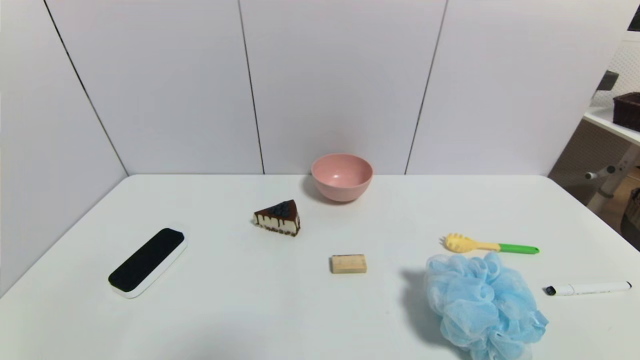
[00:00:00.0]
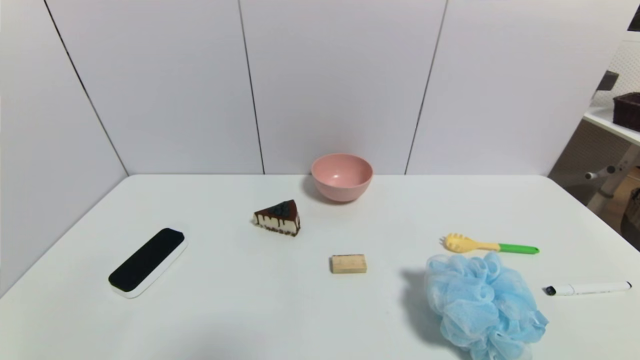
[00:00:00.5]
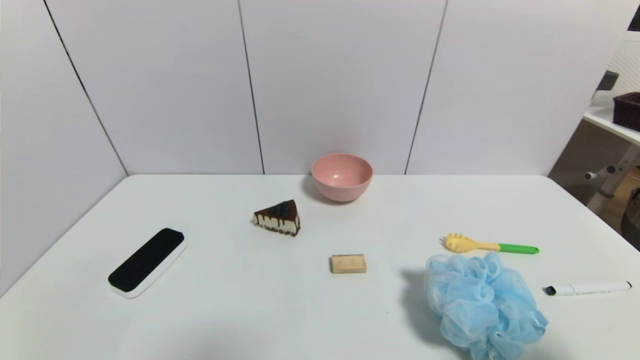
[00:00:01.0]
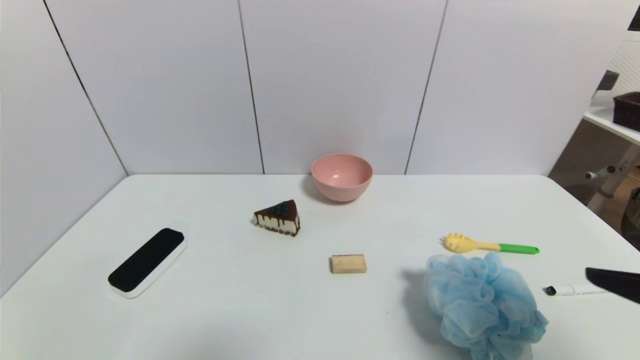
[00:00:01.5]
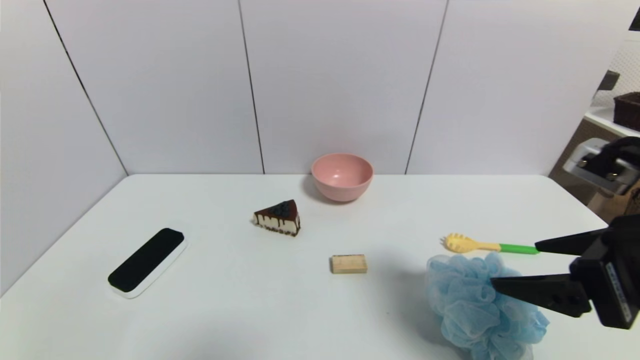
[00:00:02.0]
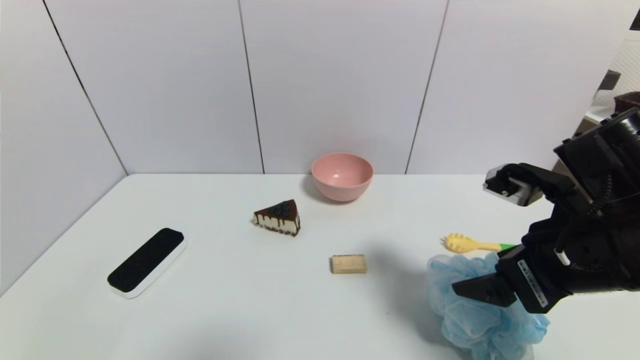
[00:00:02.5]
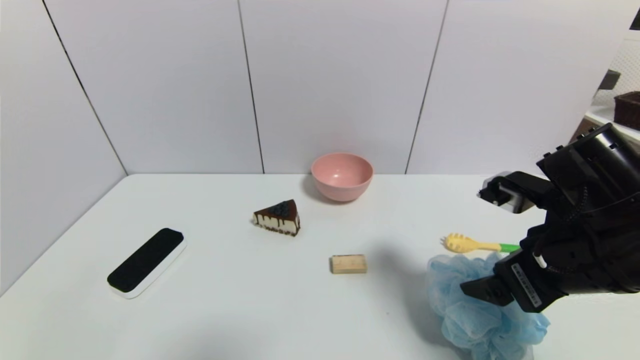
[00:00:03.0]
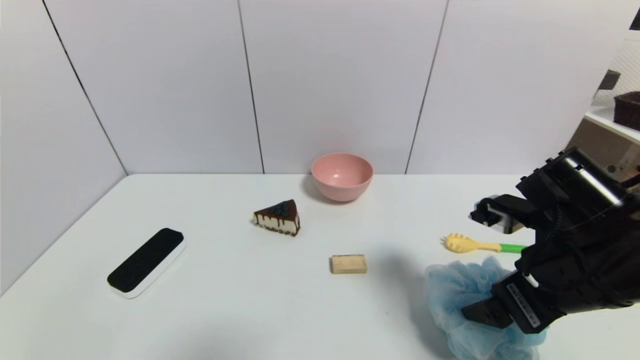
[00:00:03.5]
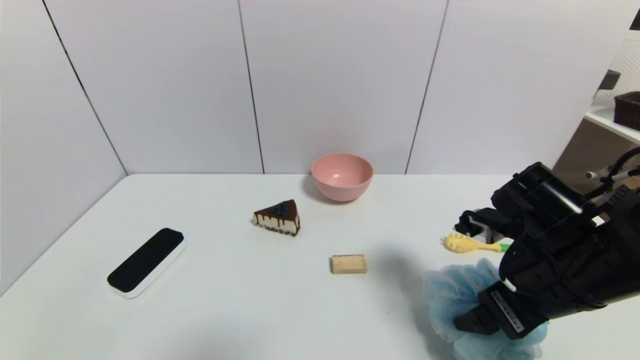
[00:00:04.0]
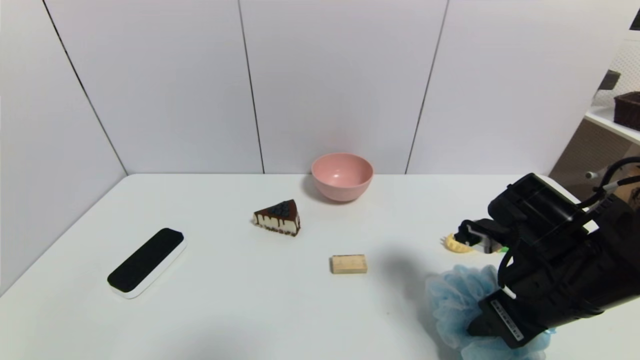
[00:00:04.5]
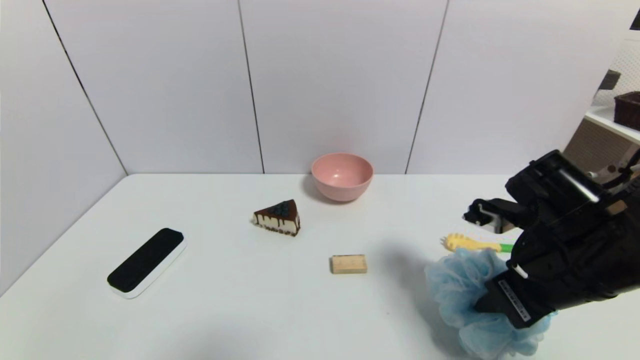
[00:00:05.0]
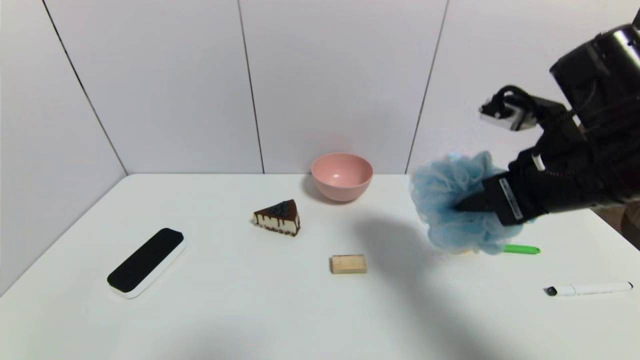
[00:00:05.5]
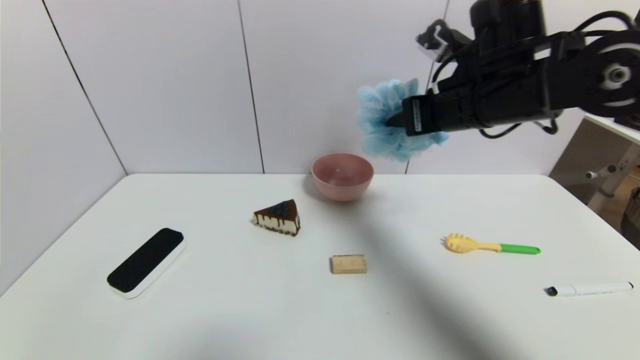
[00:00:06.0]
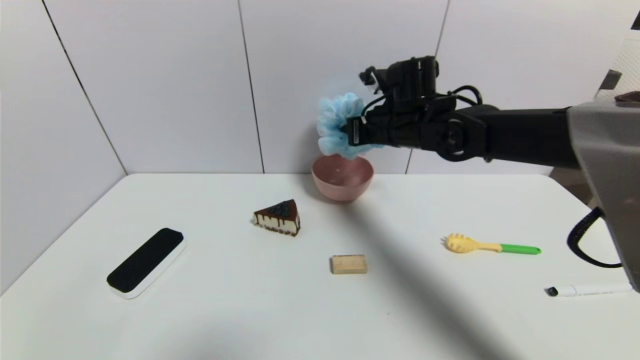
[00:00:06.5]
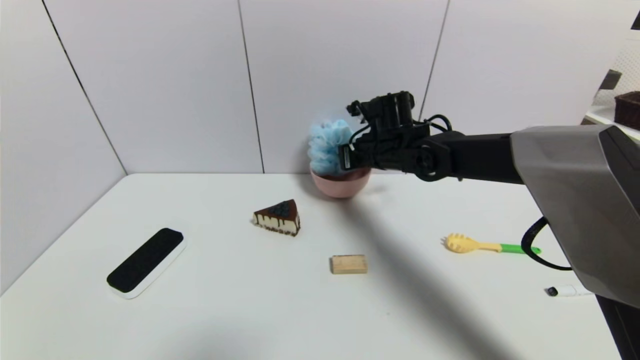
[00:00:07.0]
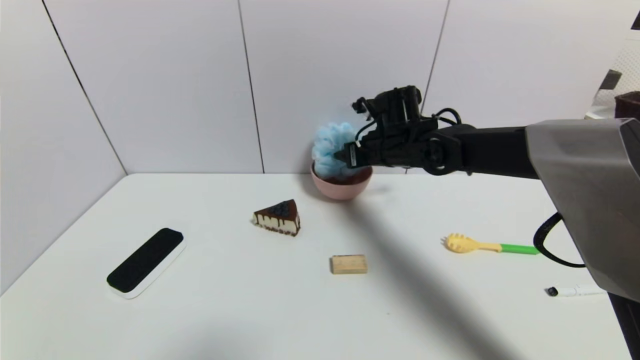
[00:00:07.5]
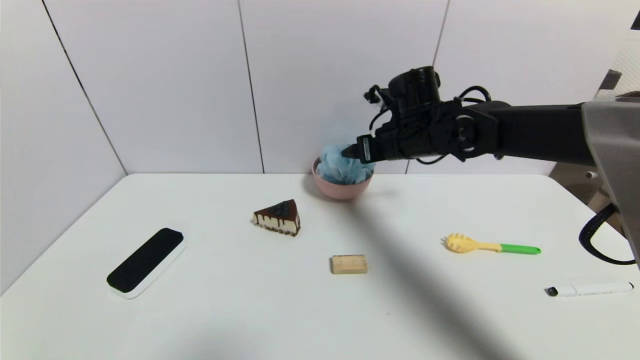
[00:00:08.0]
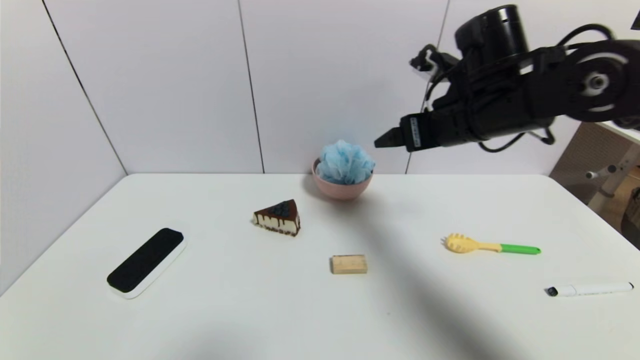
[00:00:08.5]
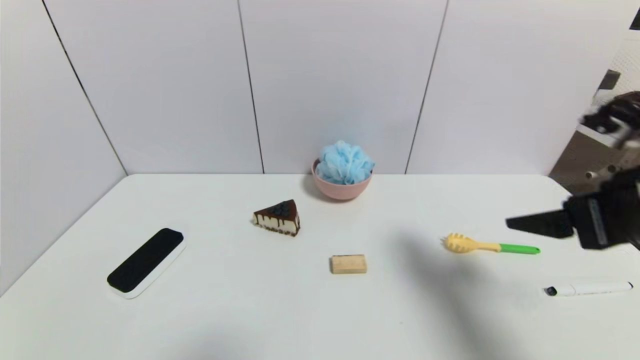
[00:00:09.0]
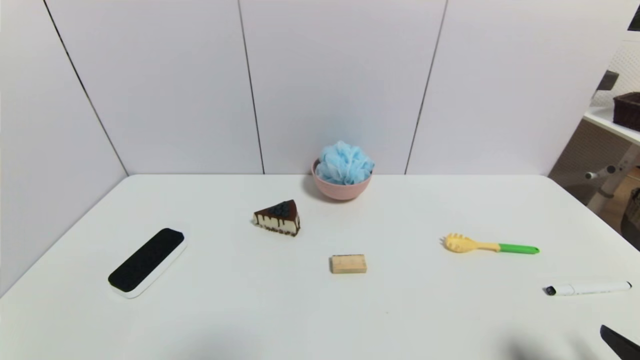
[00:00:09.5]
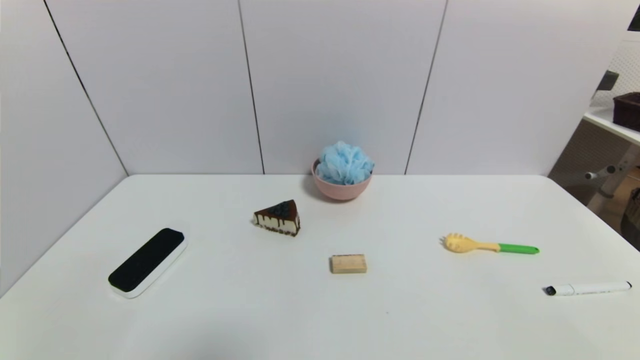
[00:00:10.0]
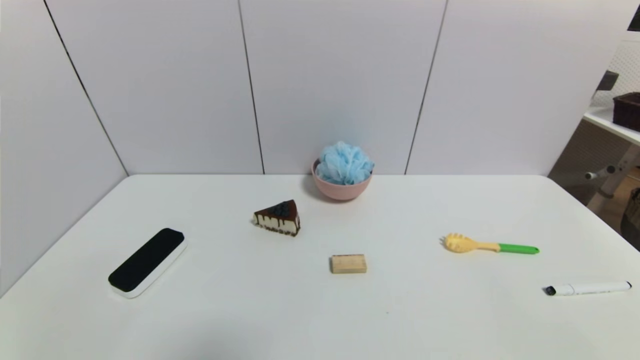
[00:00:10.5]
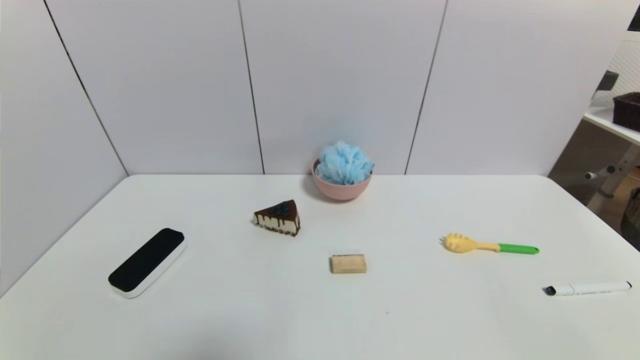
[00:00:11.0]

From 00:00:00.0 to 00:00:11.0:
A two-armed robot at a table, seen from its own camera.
Task of the whole recording: use a gripper to pick the target object and place on the pink bowl.
Step, from 00:00:00.0 to 00:00:04.5: Grasp the shower sphere with the right gripper.
Step, from 00:00:05.0 to 00:00:08.0: Place the shower sphere on the pink bowl with the right gripper.
From 00:00:00.0 to 00:00:02.0: The right gripper heads upward, forward and to the left, covering roughly 25 cm.
From 00:00:02.0 to 00:00:03.5: The right gripper travels downward by about 5 cm.
From 00:00:03.5 to 00:00:05.5: The right gripper goes roughly 10 cm upward, and closes its fingers.
From 00:00:05.5 to 00:00:07.5: The right gripper moves forward, to the left and downward, about 25 cm, and opens its fingers.
From 00:00:07.5 to 00:00:09.0: The right gripper shifts about 30 cm backward and to the right.
From 00:00:09.0 to 00:00:11.0: The right gripper heads backward and downward, covering roughly 25 cm.
